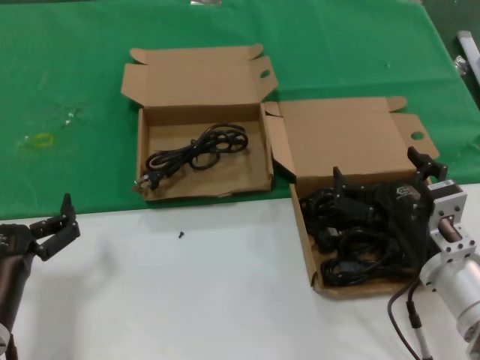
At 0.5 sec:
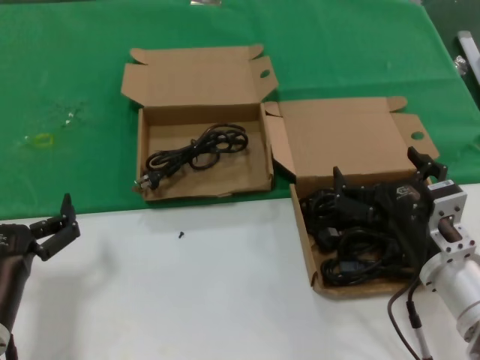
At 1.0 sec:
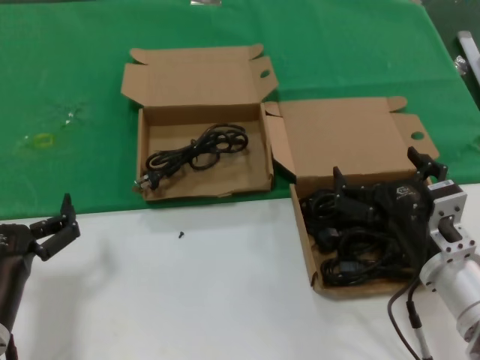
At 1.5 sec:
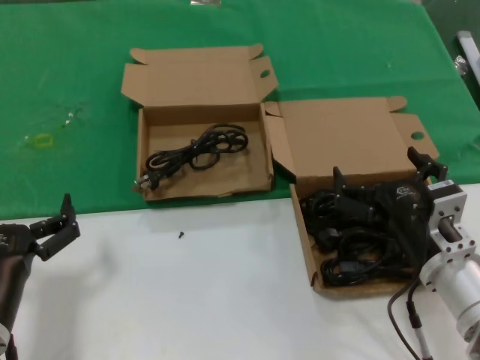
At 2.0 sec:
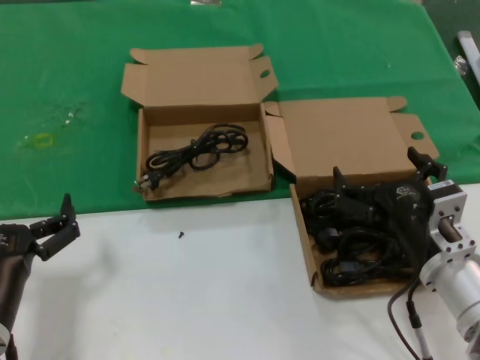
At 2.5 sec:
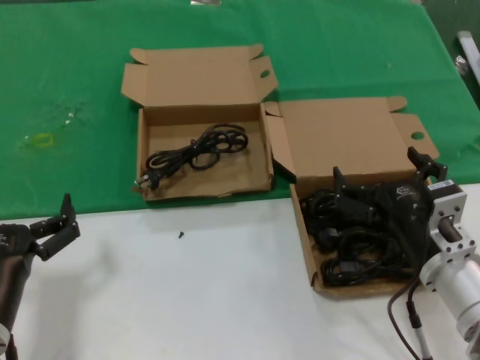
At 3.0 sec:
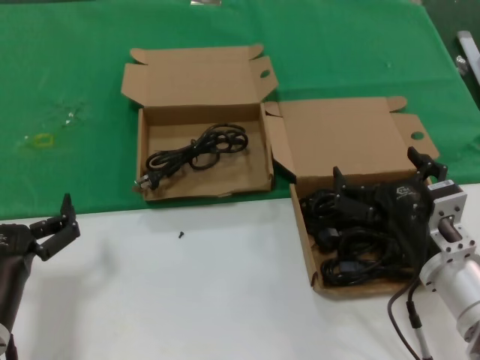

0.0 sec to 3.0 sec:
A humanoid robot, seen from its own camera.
Task of the whole recording: take the parts from the box containing them and put them into an empty box.
0.0 sec to 3.0 sec: Neither hand changes place.
